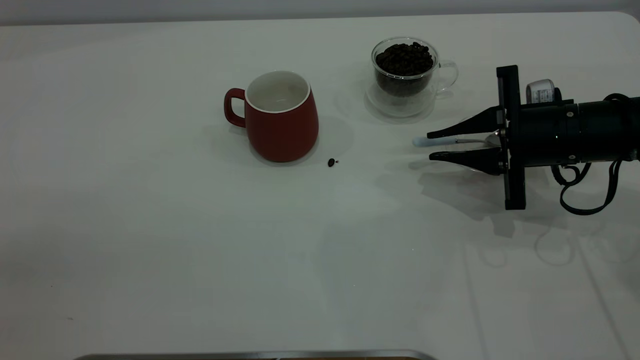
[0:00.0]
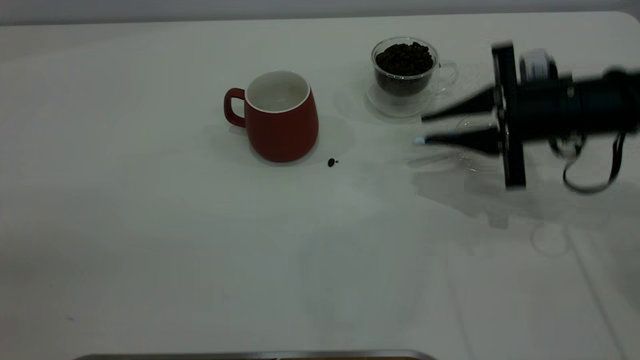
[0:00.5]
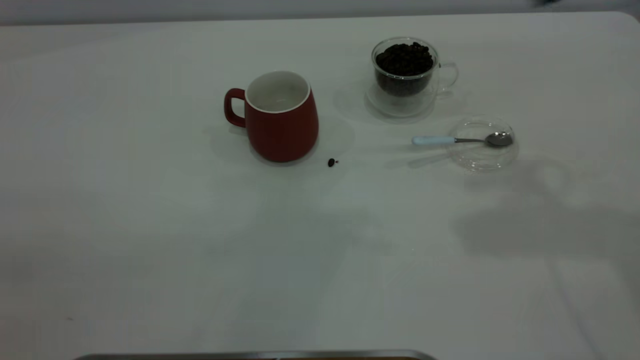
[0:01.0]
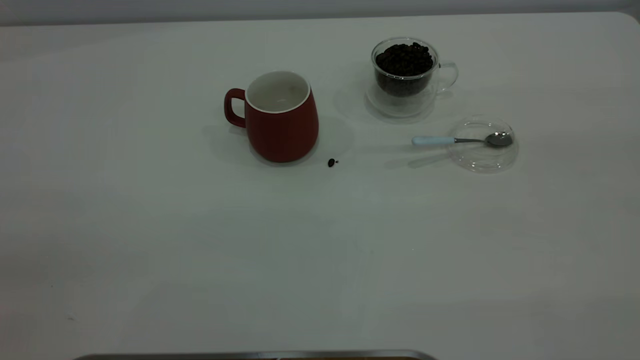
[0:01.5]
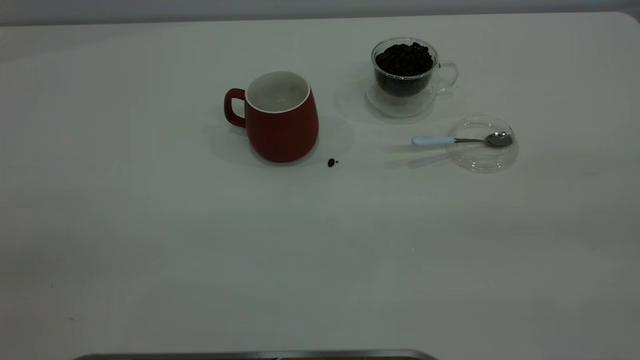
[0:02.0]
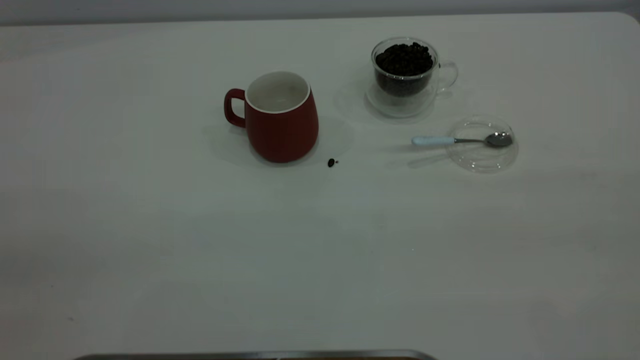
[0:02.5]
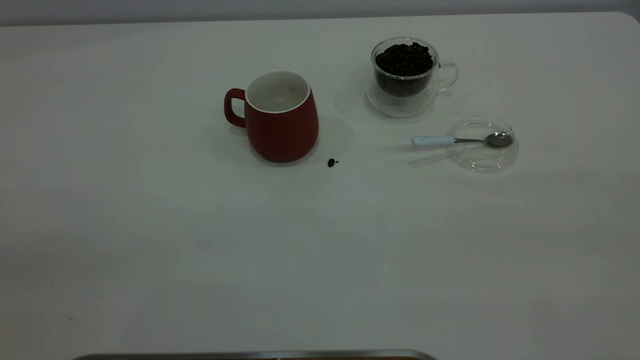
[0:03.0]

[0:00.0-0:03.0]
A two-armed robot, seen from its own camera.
Task of the whole recording: the left gripper place the red cup in the center of the table, the right gripper take the blue spoon from the cup lid and scoop out the coffee beans from the coffee cup and put them into the red cup, the right gripper put the spoon back into the cup lid.
0:00.0 to 0:01.5: The right gripper goes some 50 cm upward and backward.

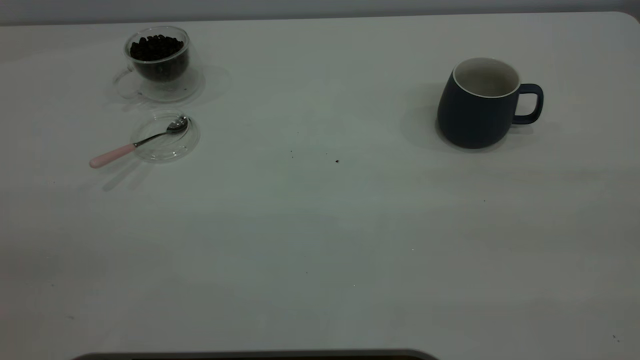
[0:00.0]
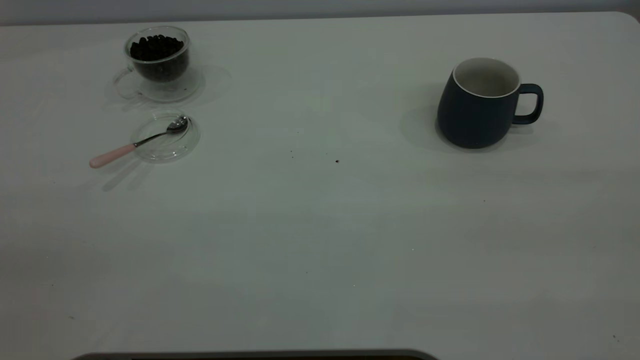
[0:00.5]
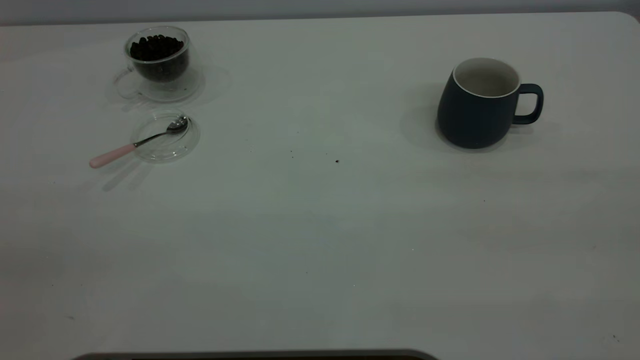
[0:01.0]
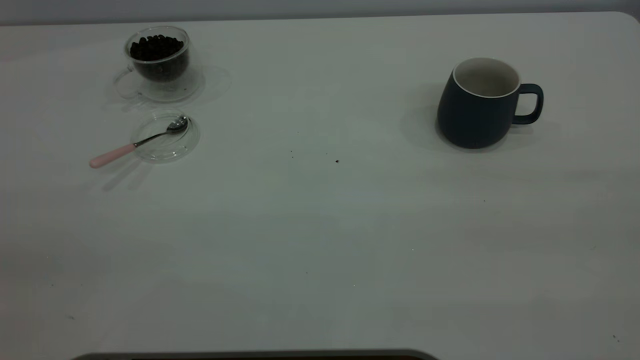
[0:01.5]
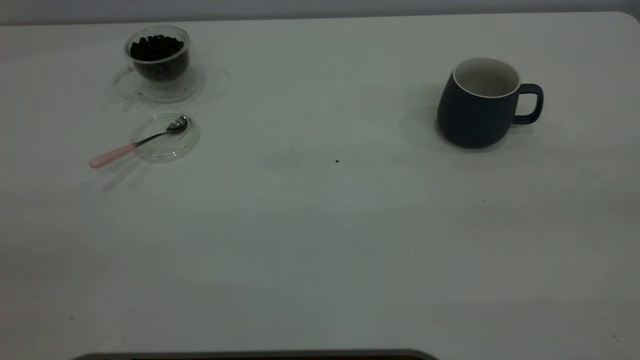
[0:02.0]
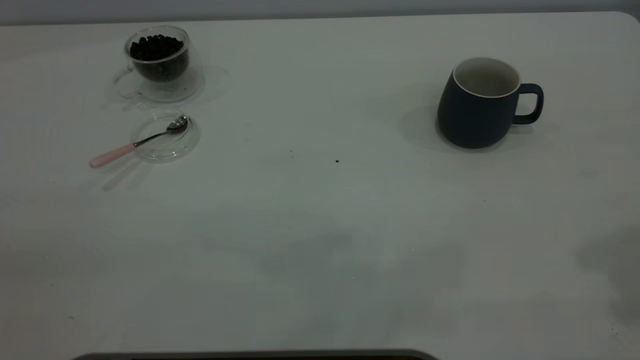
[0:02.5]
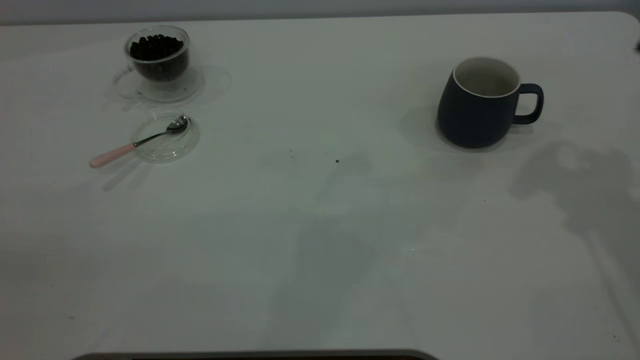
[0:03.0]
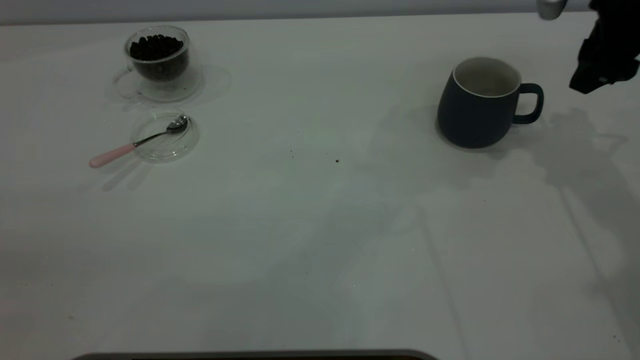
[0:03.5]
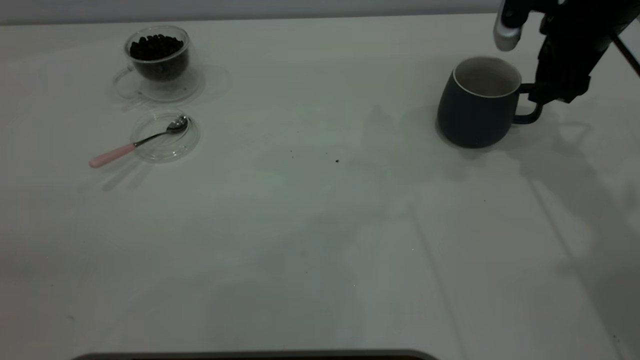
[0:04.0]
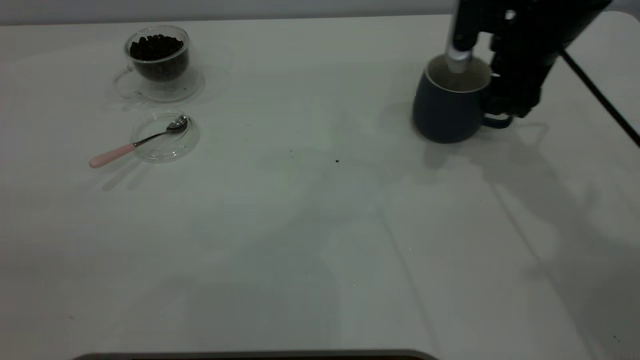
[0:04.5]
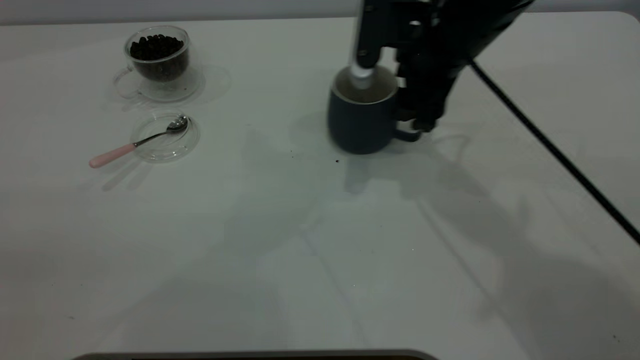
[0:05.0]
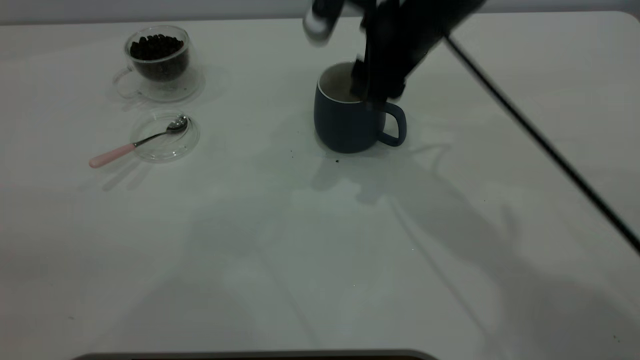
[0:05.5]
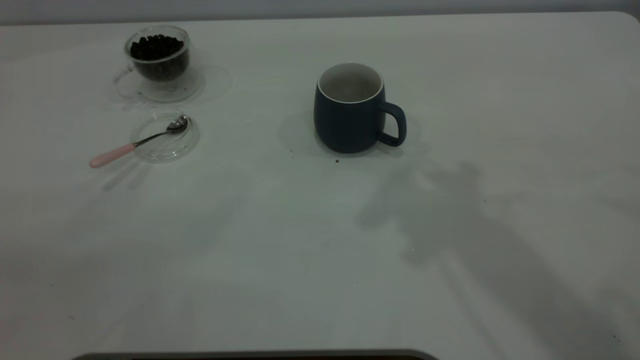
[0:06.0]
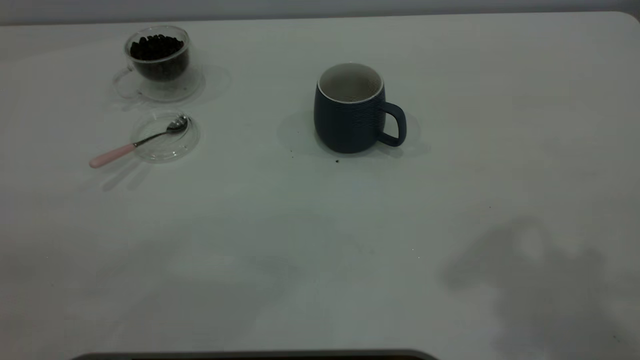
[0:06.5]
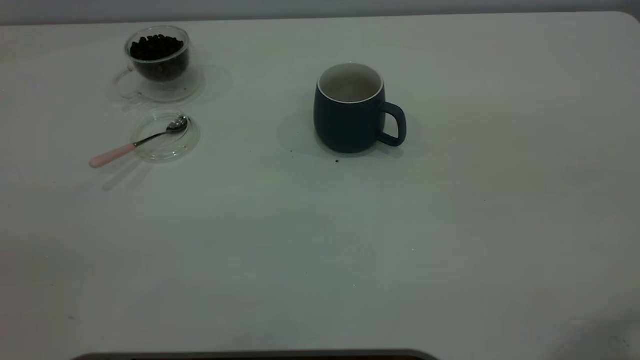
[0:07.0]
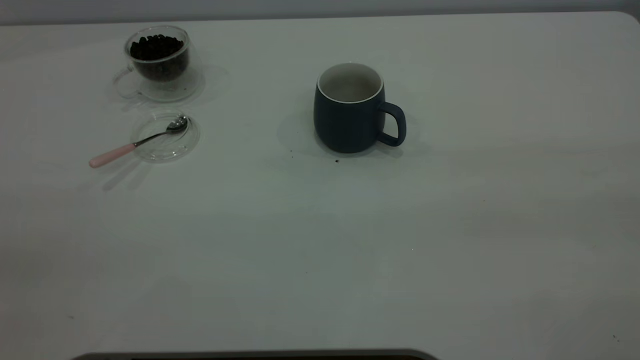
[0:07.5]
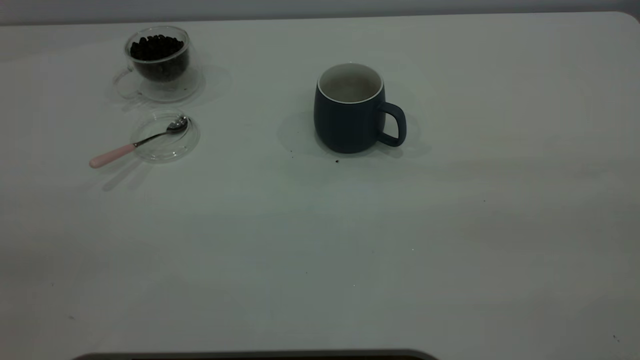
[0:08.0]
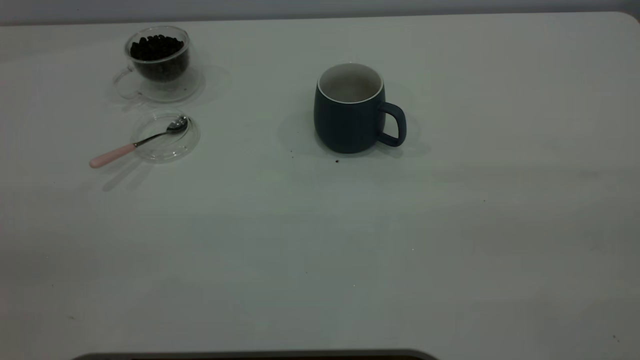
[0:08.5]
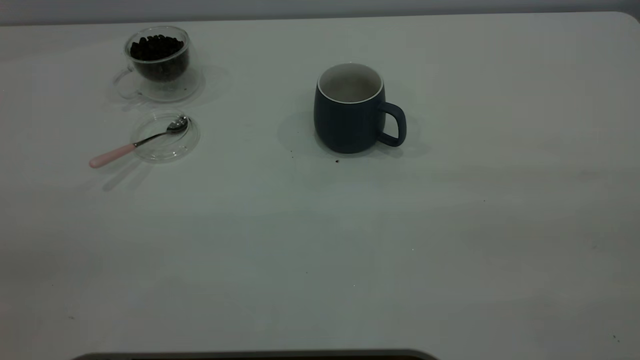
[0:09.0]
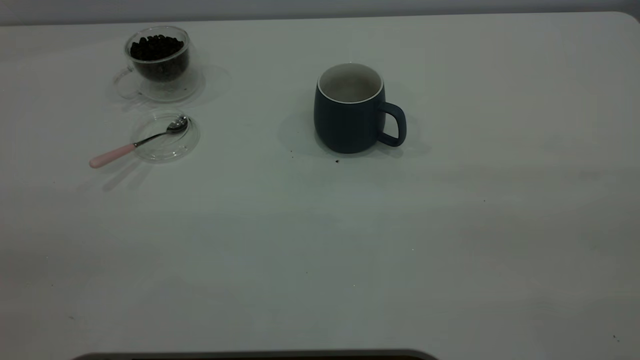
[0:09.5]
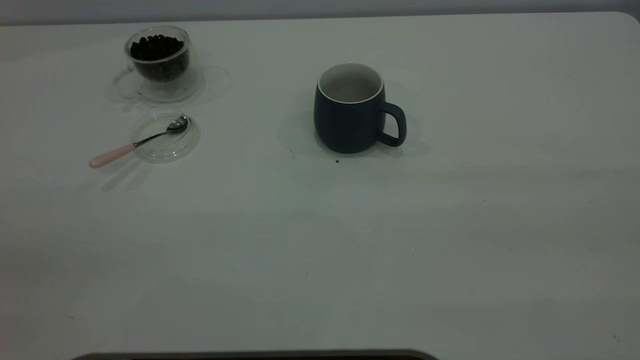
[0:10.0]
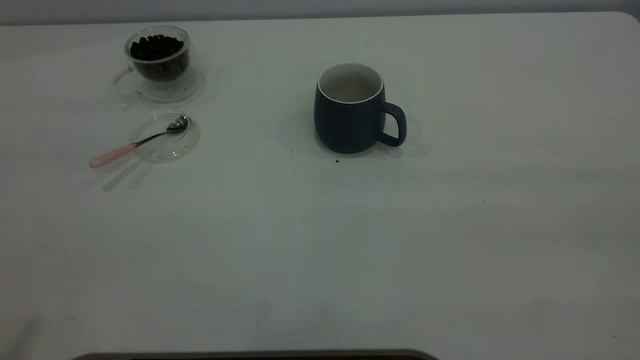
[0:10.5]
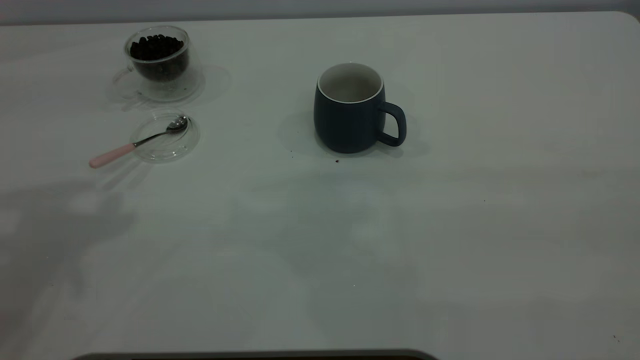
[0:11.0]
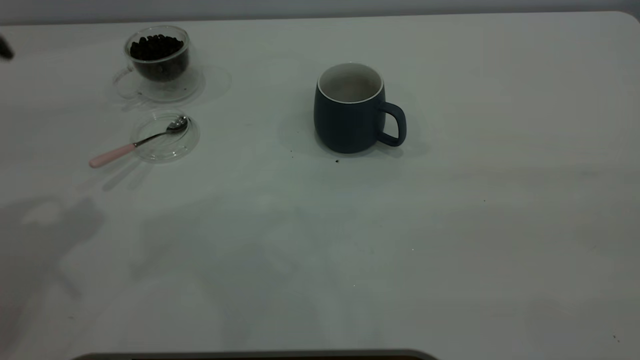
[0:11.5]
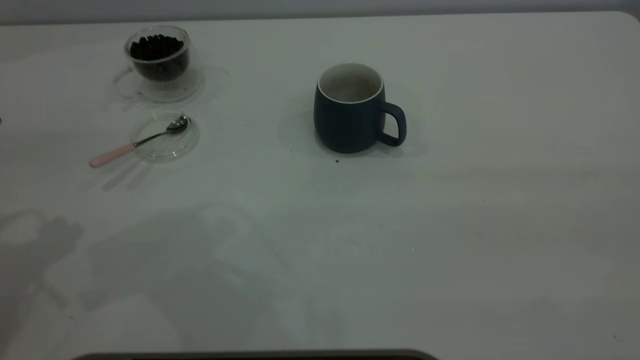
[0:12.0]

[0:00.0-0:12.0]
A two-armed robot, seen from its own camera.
Task of the whole recording: the right gripper place the grey cup in the center of the table, the left gripper take the pink spoon from the cup lid and scoop out the coffee beans from the coffee cup and put them into the grey cup, the left gripper put the spoon back into the cup lid.
Step, 0:00.0 to 0:05.5: Move the cup to the center of view.
0:02.0 to 0:04.0: The right gripper heads forward and downward, covering roughly 50 cm.
0:04.0 to 0:06.0: The right gripper heads upward, backward and to the left, covering approximately 30 cm.
0:08.0 to 0:10.0: Both grippers stay put.

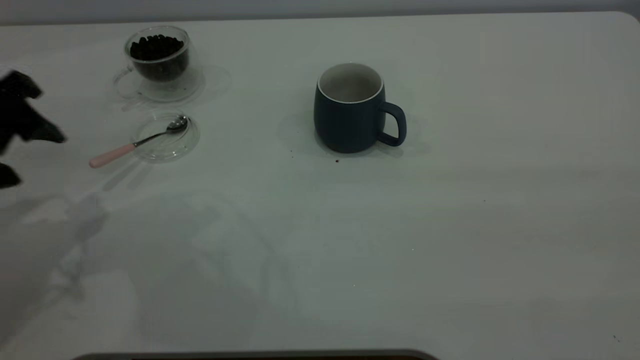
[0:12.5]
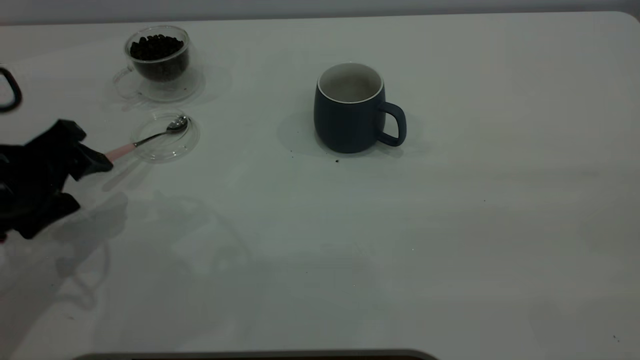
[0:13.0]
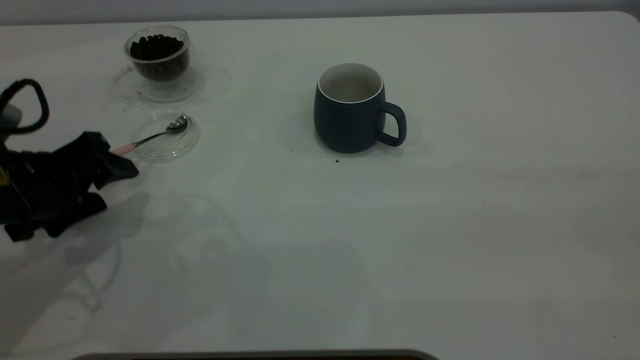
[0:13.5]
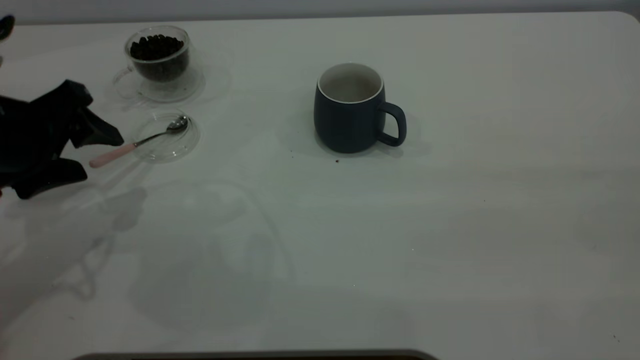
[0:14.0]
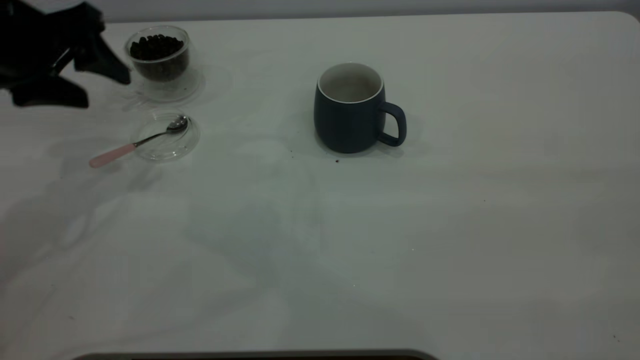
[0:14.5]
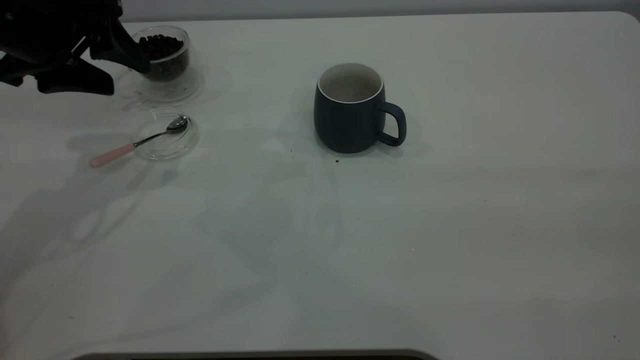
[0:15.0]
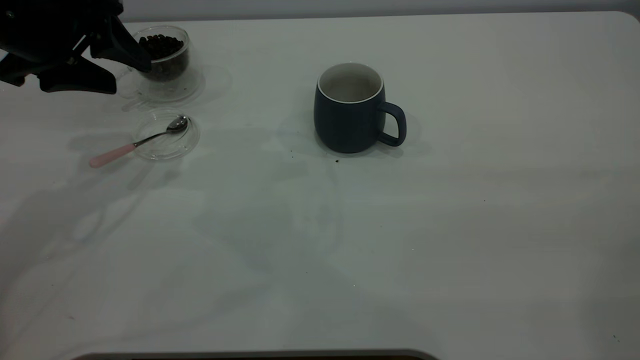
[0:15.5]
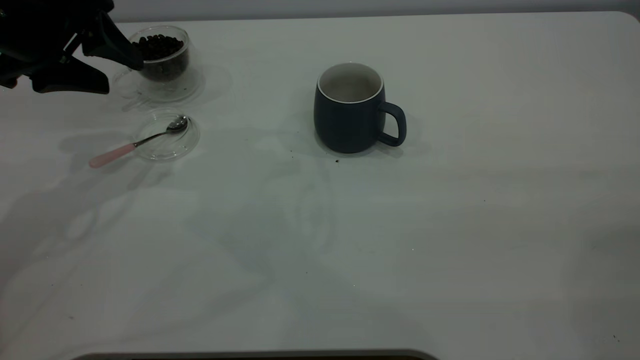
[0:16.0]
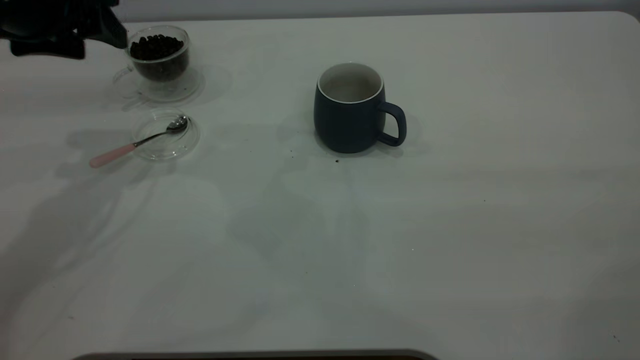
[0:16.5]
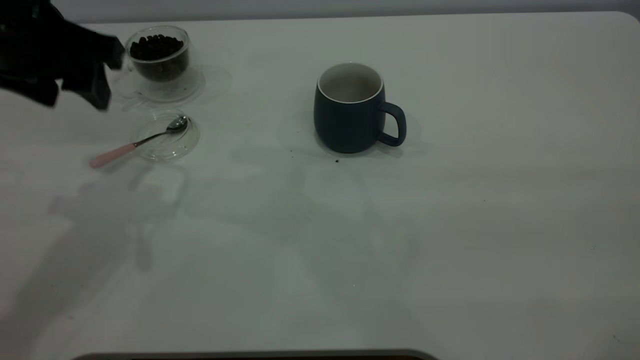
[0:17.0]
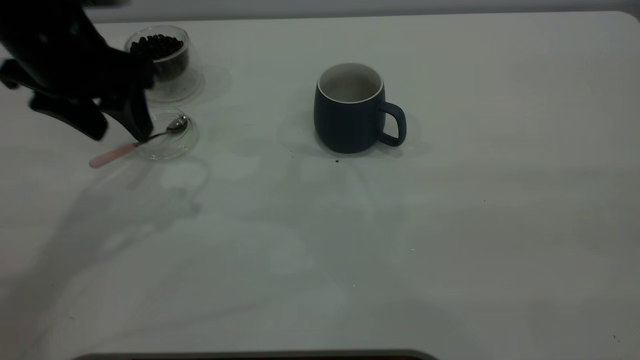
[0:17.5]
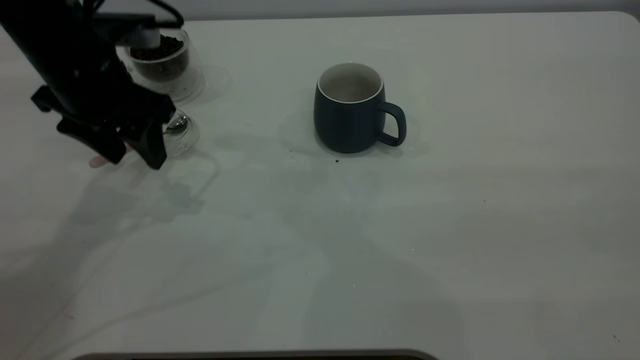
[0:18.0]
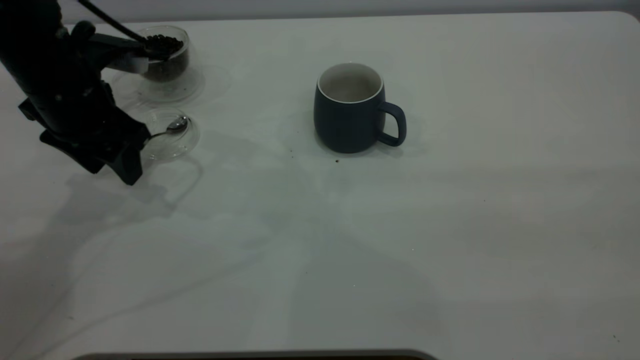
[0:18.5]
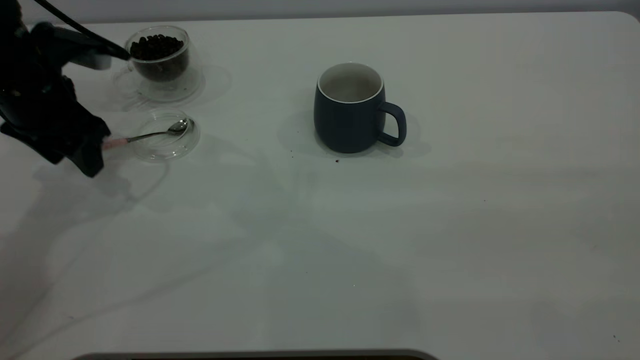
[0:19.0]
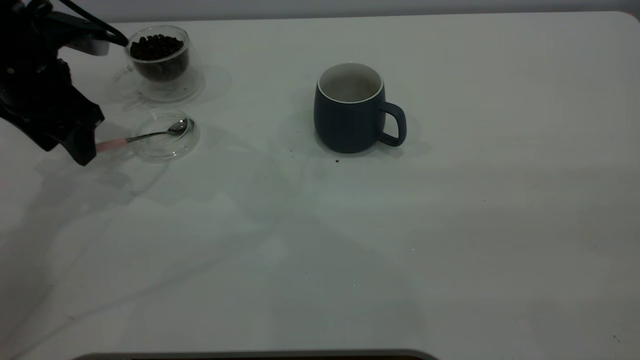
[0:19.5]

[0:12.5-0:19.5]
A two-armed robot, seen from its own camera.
Task of the whole recording: the right gripper place the grey cup in the center of the table, the left gripper take the pink spoon from the cup lid and scoop out the coffee beans from the coffee cup and put them into the grey cup, the left gripper put the spoon back into the cup lid.
0:12.5 to 0:14.5: The left gripper moves forward, about 10 cm, and reaches roughly 5 cm downward, then returns.
0:14.5 to 0:16.0: There are only small adjustments of the grippers.
0:17.5 to 0:19.5: The left gripper is displaced to the left by about 5 cm.
